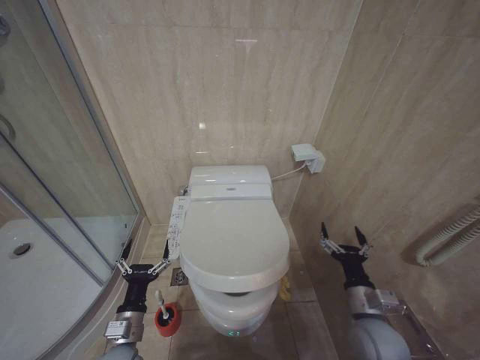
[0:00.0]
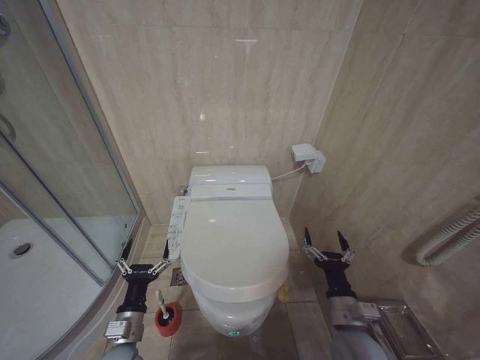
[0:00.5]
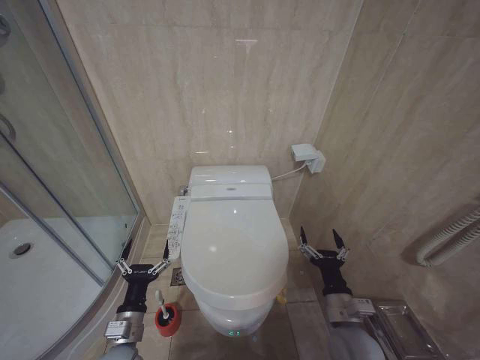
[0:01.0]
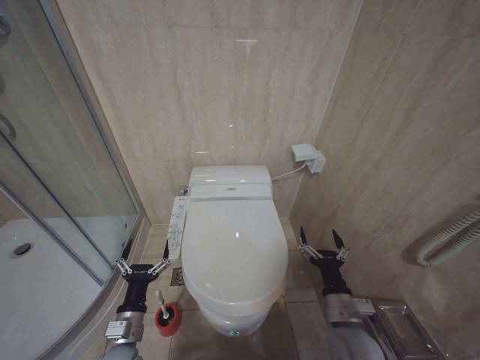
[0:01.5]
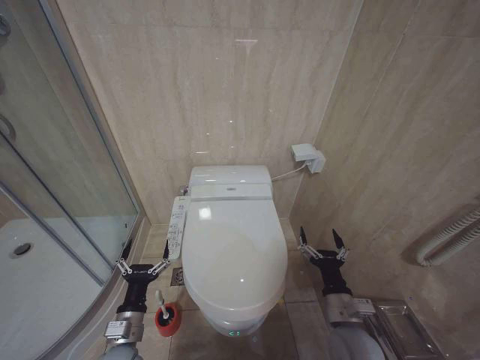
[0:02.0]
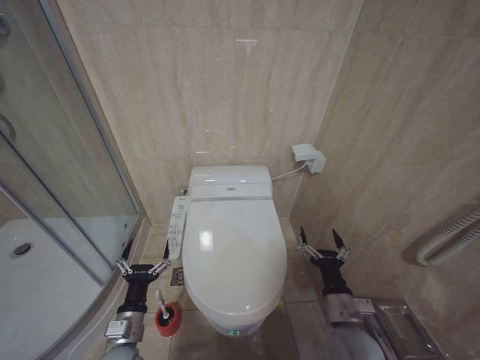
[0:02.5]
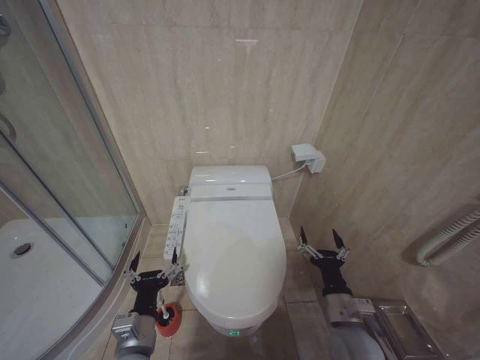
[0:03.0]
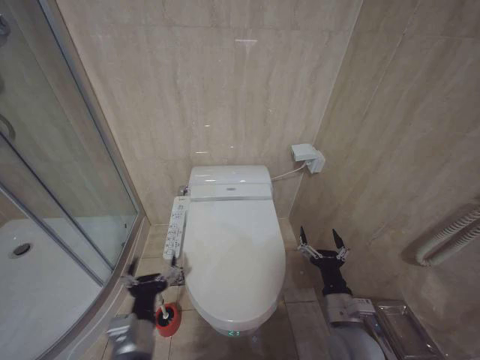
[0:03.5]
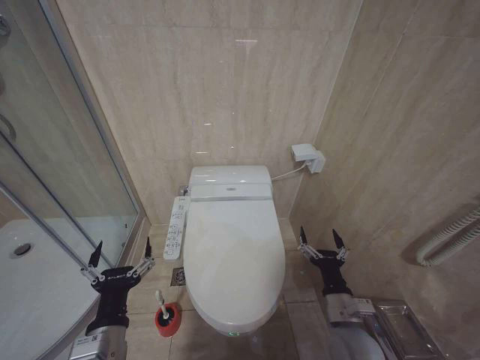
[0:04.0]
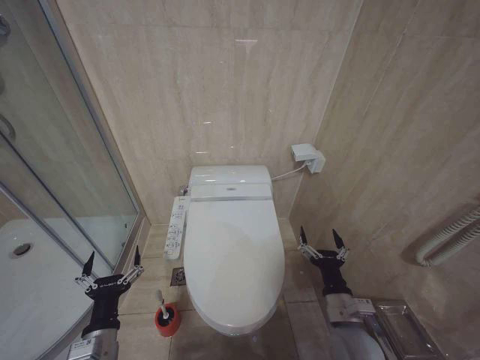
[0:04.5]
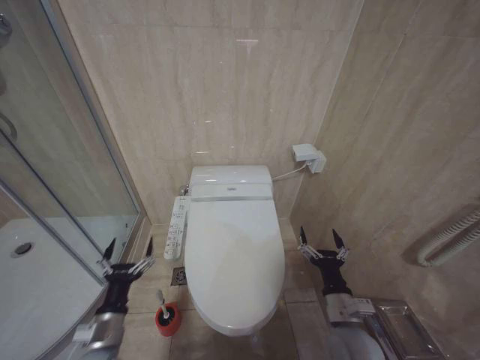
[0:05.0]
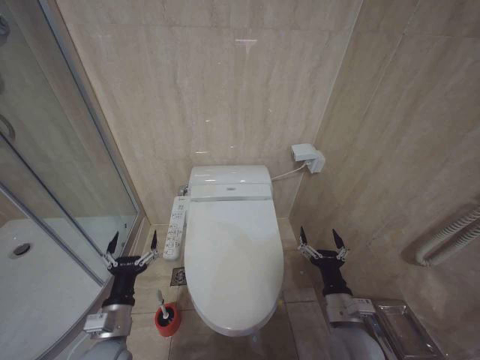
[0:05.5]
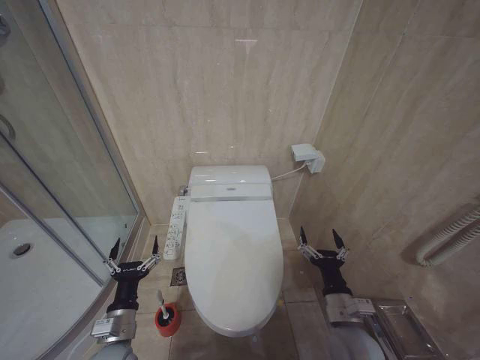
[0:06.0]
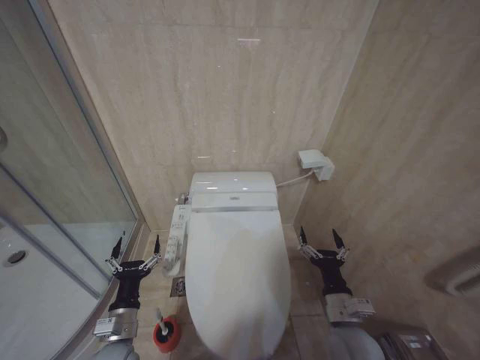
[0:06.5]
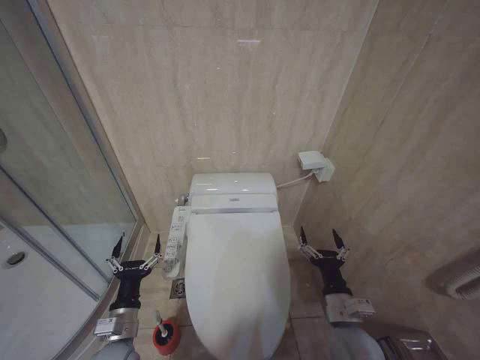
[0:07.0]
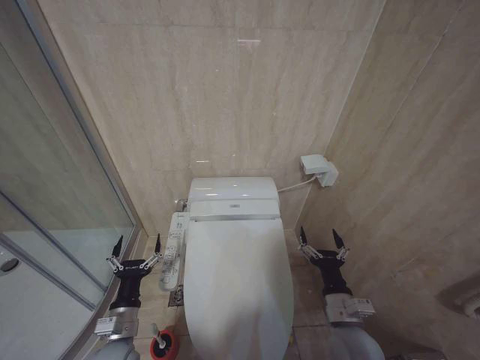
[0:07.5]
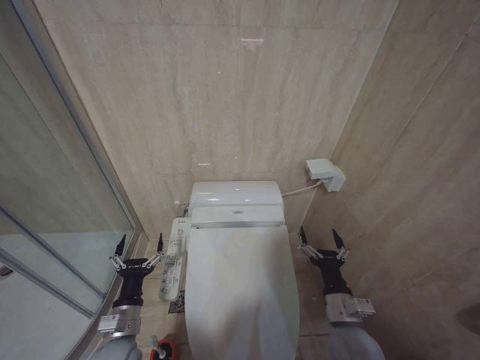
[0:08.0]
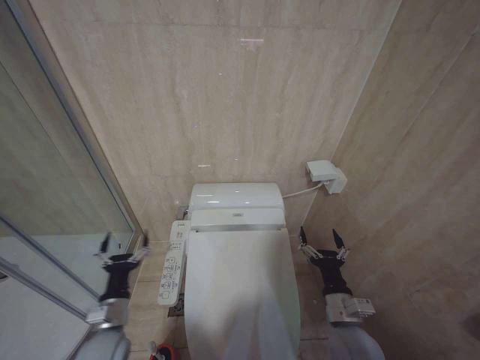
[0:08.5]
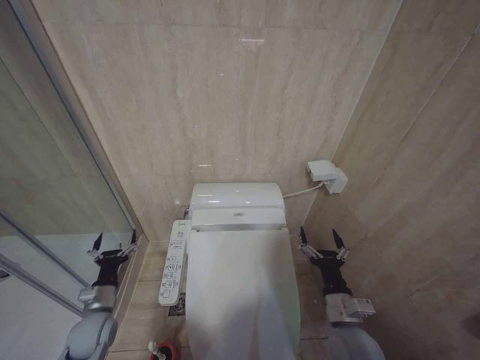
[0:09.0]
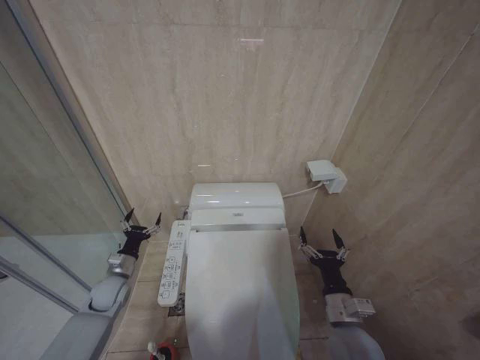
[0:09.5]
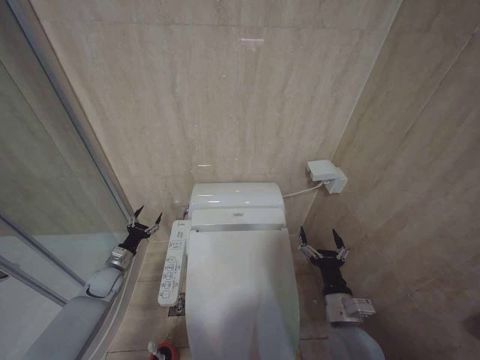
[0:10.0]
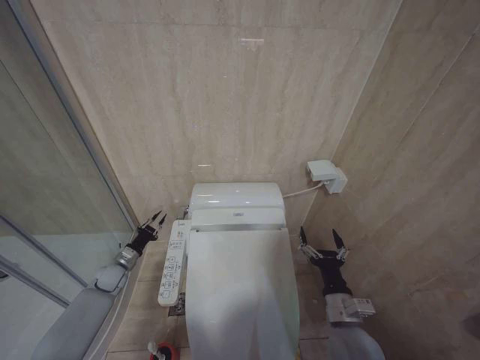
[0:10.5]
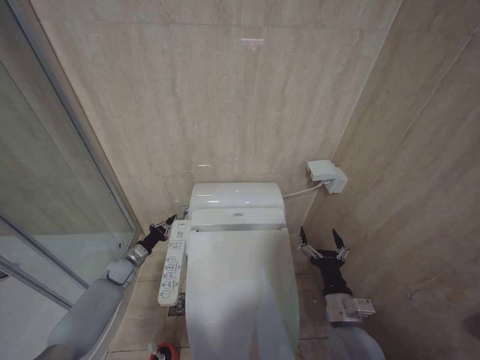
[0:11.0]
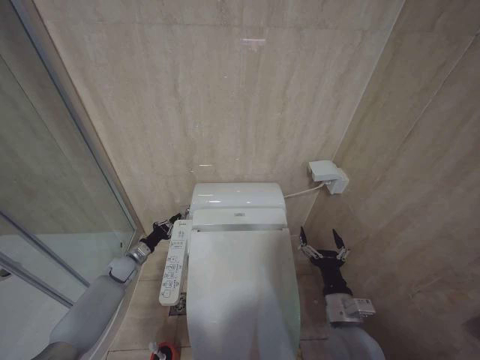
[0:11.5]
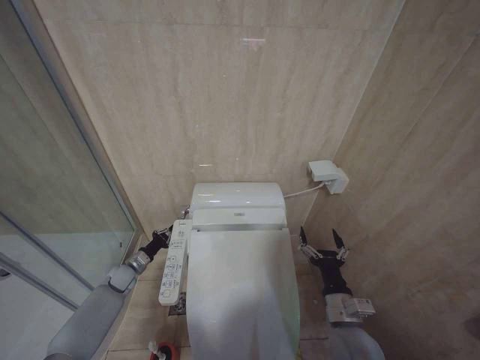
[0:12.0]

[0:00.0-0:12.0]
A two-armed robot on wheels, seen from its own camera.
Task of the whole recording: Open the toilet lid, clean the toilet bowl with a toilet brush, close the toilet lid, and flush.
0:00.0 to 0:02.0: The right gripper shifts approximately 5 cm to the left.
0:02.0 to 0:04.0: The left gripper moves upward and backward, approximately 15 cm.
0:04.0 to 0:06.0: The left gripper swings up and down, approximately 10 cm each way, with 2 reversals.
0:06.0 to 0:08.0: Both grippers stay put.
0:08.0 to 0:10.0: The left gripper is displaced forward and to the left by roughly 25 cm.
0:10.0 to 0:12.0: The left gripper shifts by approximately 5 cm, and closes.

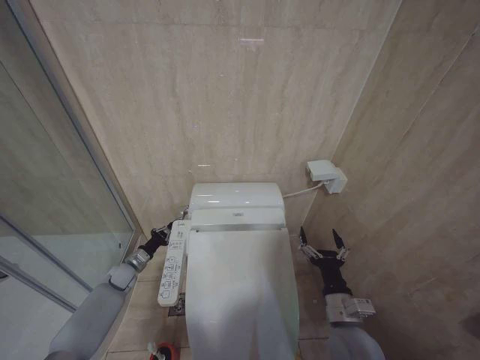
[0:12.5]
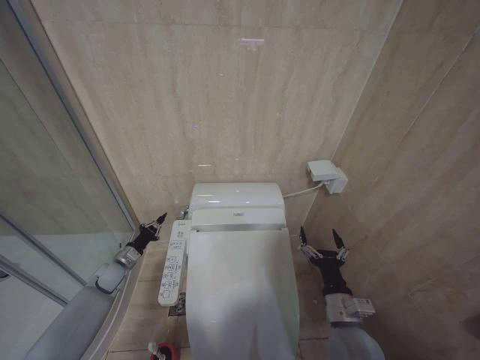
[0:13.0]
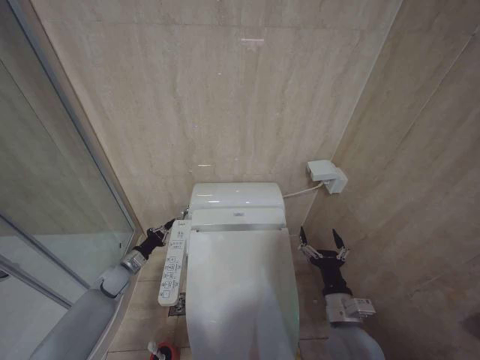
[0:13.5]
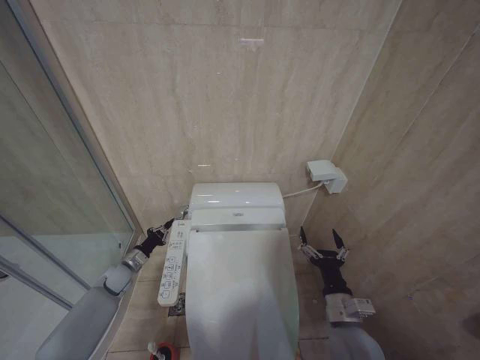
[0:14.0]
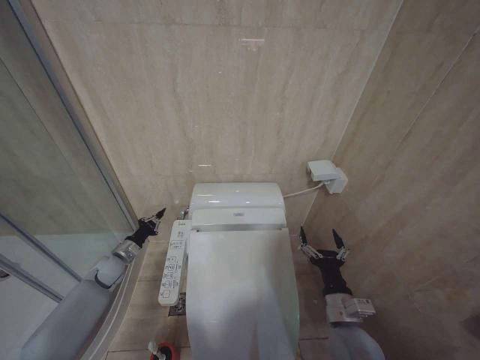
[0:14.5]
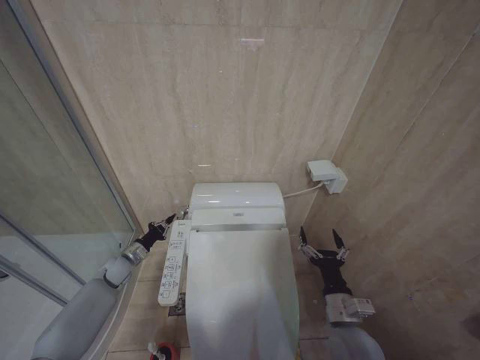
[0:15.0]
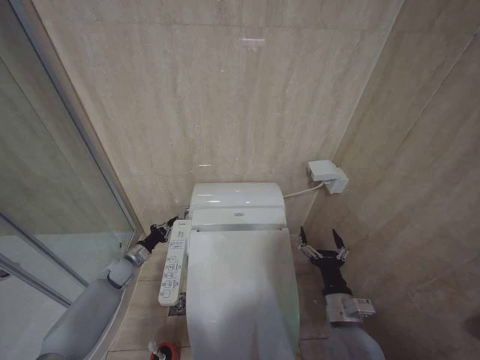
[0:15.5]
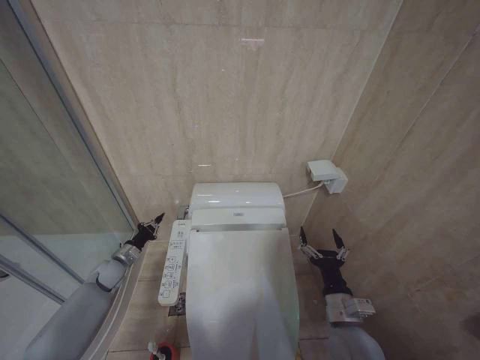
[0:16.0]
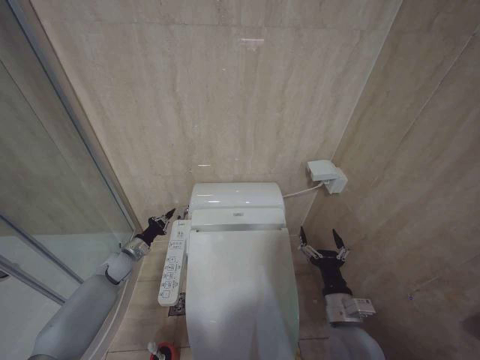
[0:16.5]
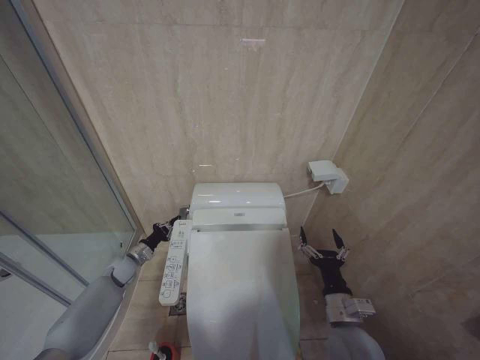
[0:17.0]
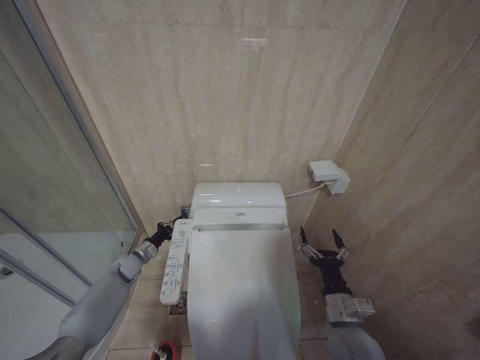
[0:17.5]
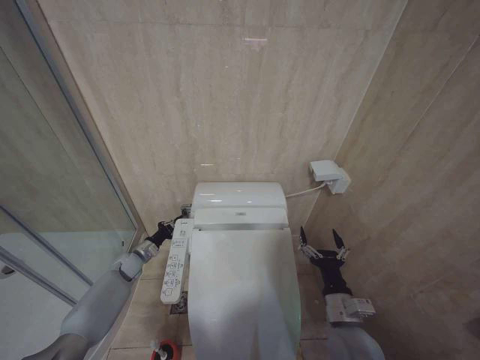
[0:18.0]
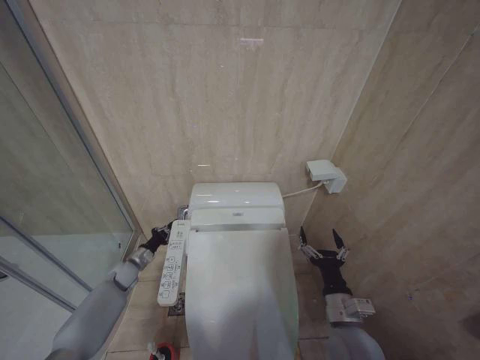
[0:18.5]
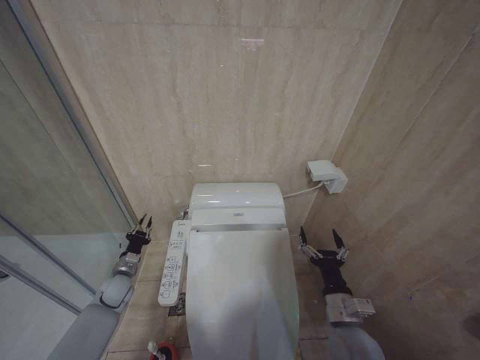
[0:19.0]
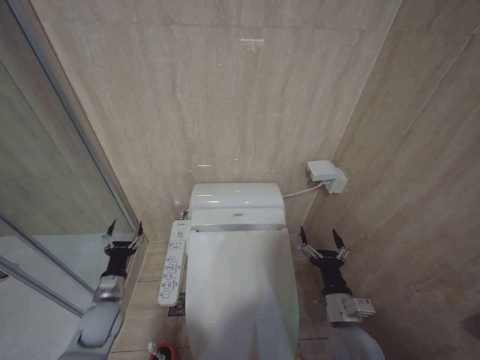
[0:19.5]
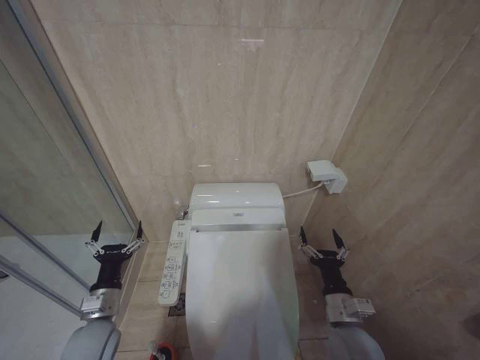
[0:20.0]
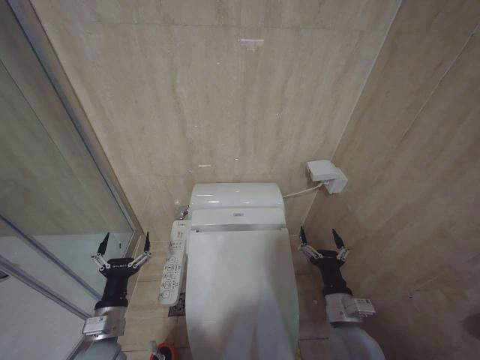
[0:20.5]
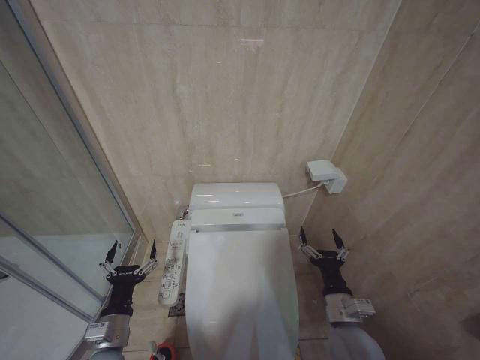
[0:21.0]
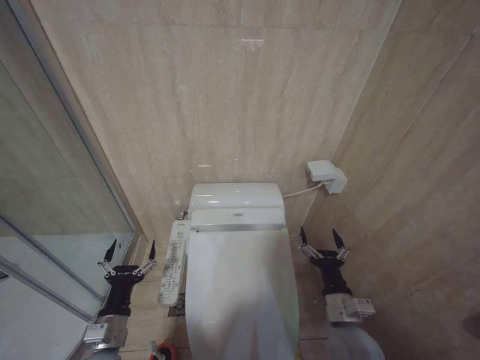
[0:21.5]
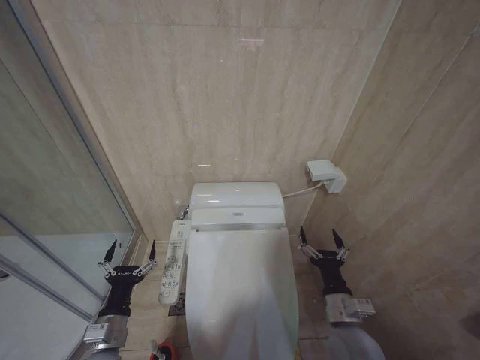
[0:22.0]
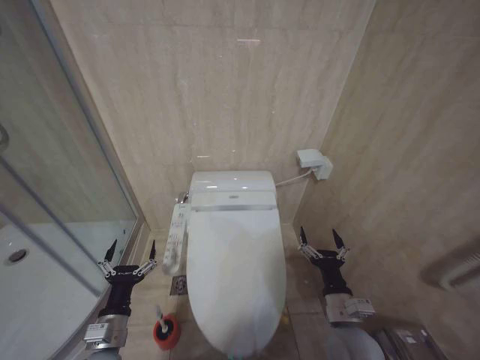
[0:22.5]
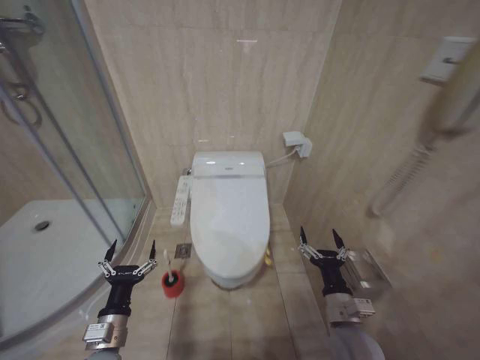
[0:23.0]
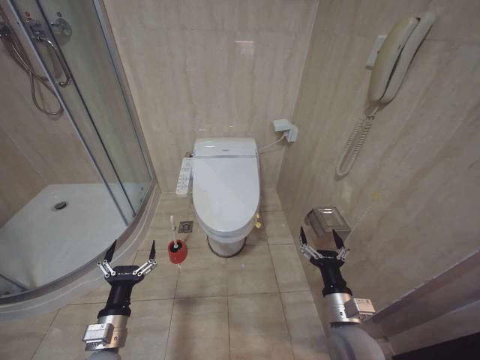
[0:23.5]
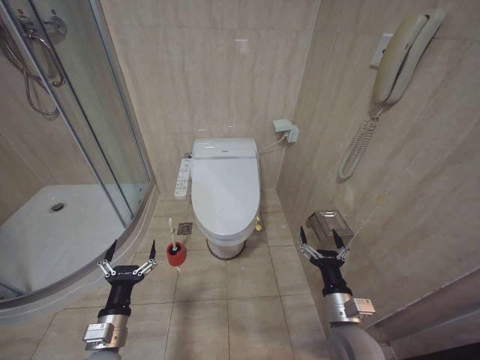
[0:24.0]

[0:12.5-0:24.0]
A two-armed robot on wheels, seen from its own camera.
Task of the whole recording: Open the toilet lid, clean the toilet bowl with a toilet brush, close the toilet lid, and flush.
0:12.5 to 0:14.5: The left gripper moves upward, roughly 5 cm.
0:14.5 to 0:16.5: There are only small adjustments of the grippers.
0:16.5 to 0:18.5: The left gripper ends up approximately 5 cm from where it was.
0:18.5 to 0:20.0: The left gripper goes about 25 cm backward and upward, and opens.
0:20.0 to 0:22.0: The left gripper heads backward, covering some 5 cm.
